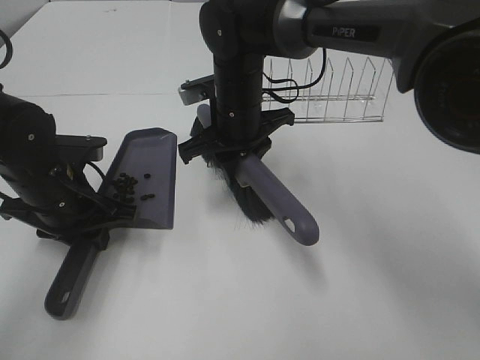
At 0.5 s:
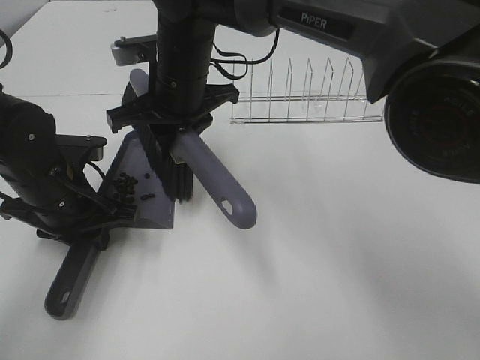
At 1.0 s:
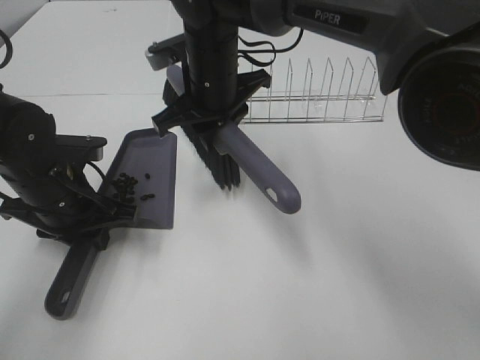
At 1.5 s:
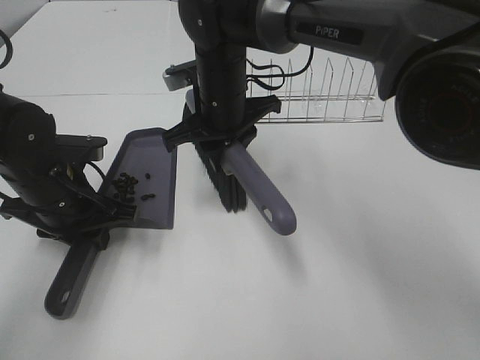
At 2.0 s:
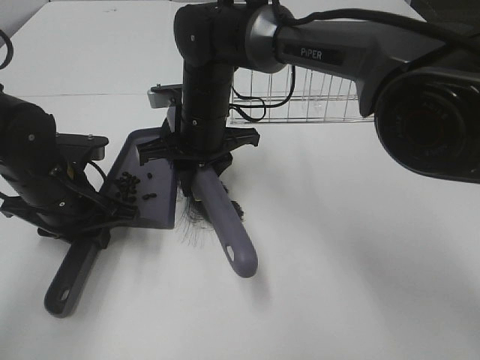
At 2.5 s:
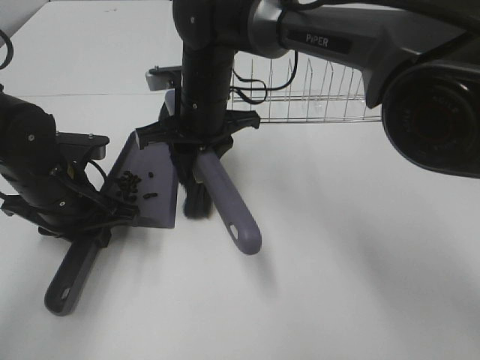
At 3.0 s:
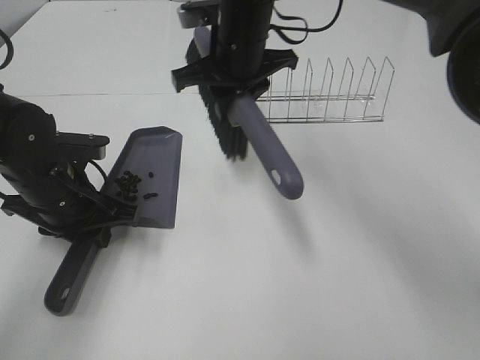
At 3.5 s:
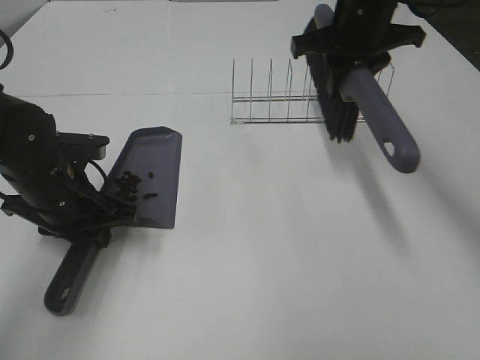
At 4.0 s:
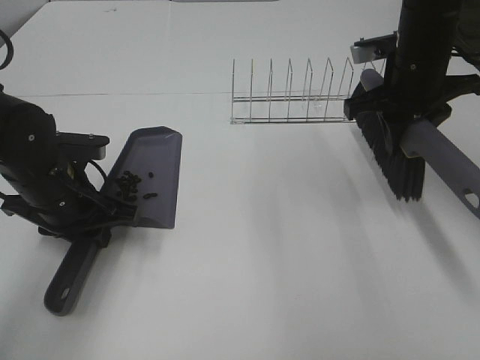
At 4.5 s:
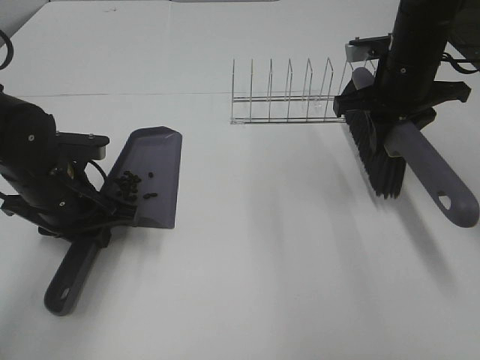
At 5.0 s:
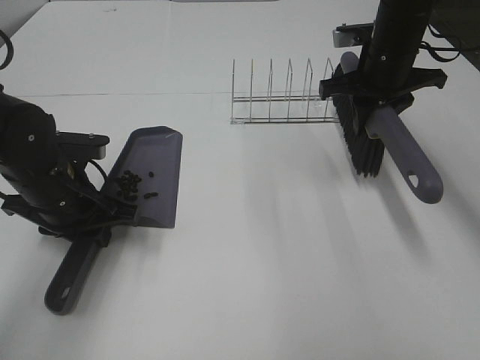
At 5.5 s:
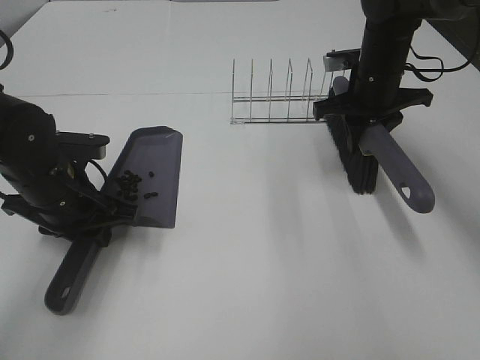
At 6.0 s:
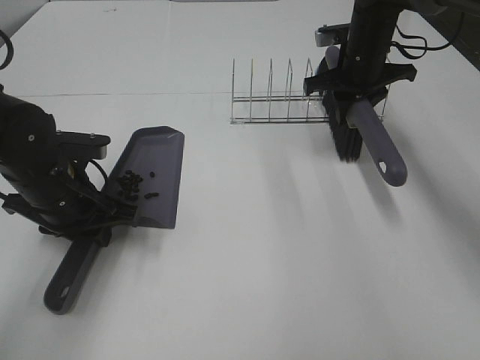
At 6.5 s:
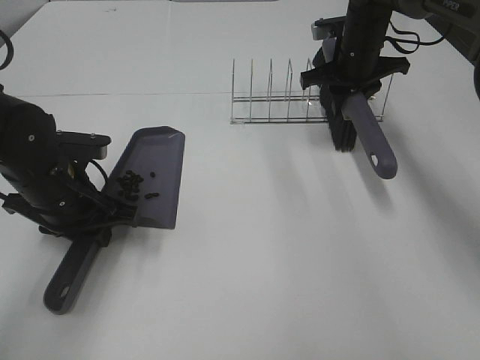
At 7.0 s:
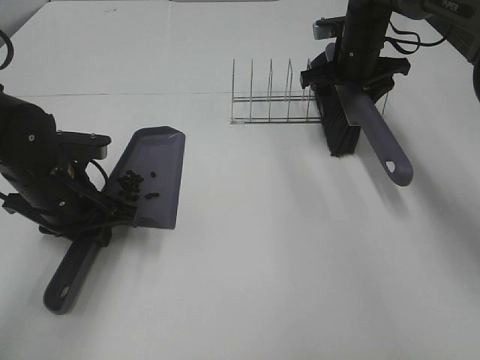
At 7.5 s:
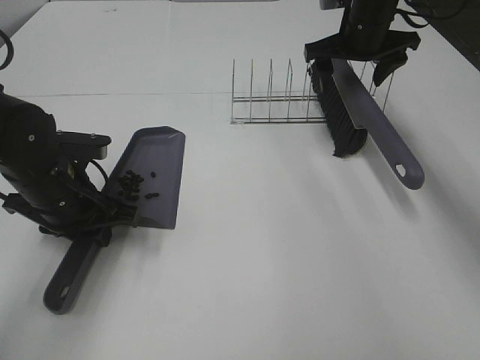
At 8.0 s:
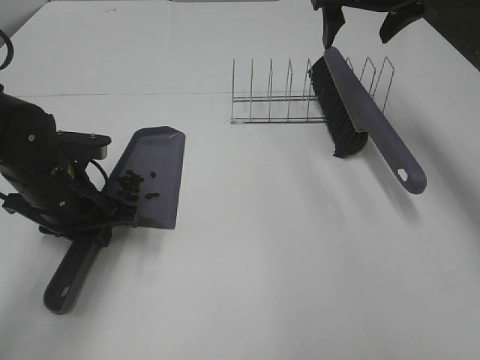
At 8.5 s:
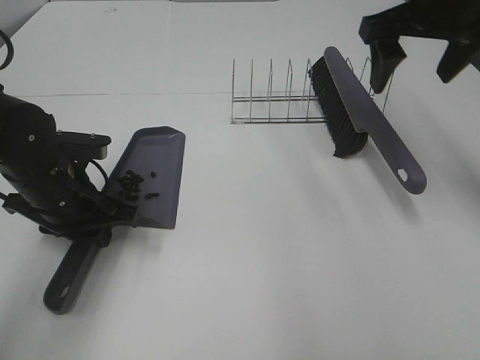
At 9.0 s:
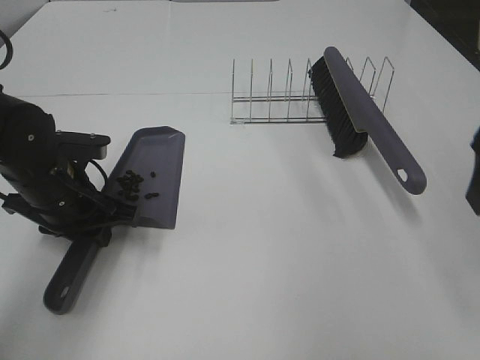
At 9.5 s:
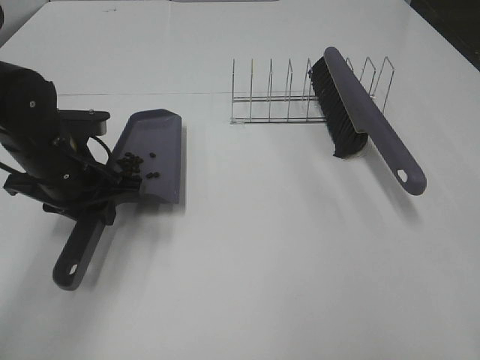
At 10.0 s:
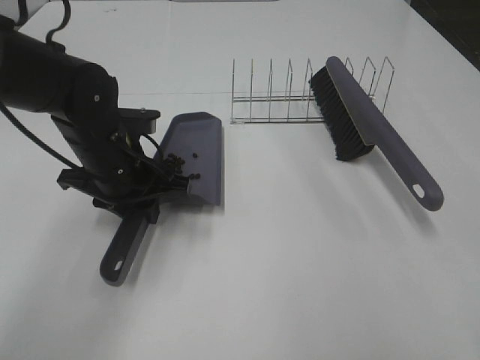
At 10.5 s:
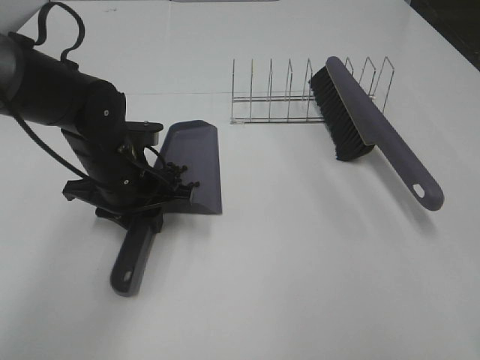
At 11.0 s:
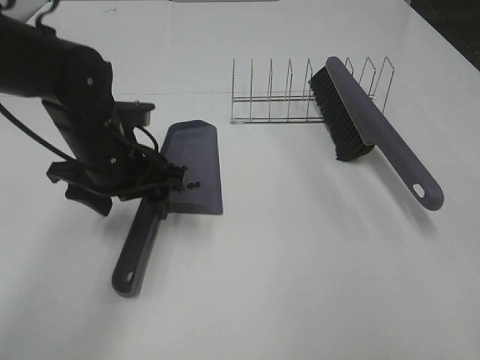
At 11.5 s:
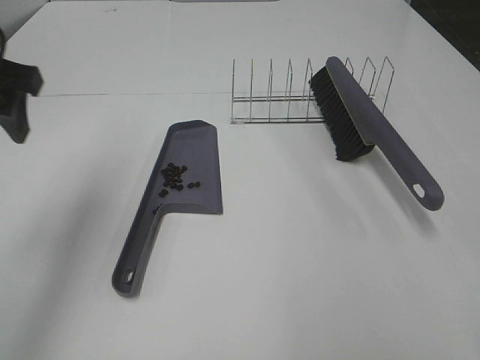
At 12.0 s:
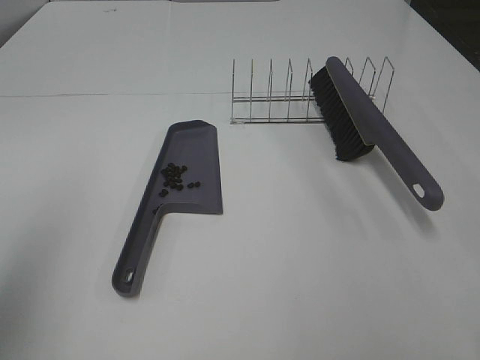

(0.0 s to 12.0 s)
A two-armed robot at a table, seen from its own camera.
Task of the whole recording: Sweep Coffee Bean.
Step, 0.0 s - 7.0 s: Right hand:place the broom on the rack.
Step, 7.5 s - 10.5 s: Left hand:place the dustpan on the table.
2.0 s - 4.0 s: The right gripper moves to the right, about 25 cm.
4.0 s - 6.0 s: The right gripper is displaced forward by roughly 10 cm.
6.0 s - 8.0 s: The right gripper heads upward, covering approximately 10 cm, and opens its fingers.
8.0 s - 10.0 s: The left gripper heads to the right, covering about 5 cm; the right gripper is displaced backward by about 40 cm.
10.0 s - 12.0 s: The left gripper is displaced upward, backward and to the left by about 35 cm, and opens.

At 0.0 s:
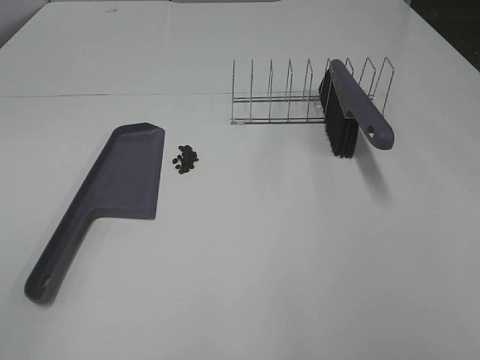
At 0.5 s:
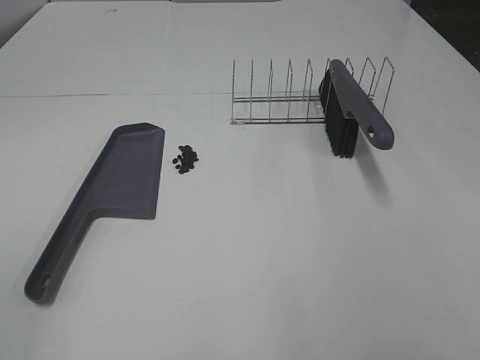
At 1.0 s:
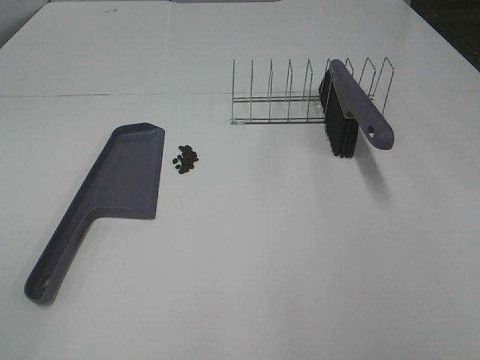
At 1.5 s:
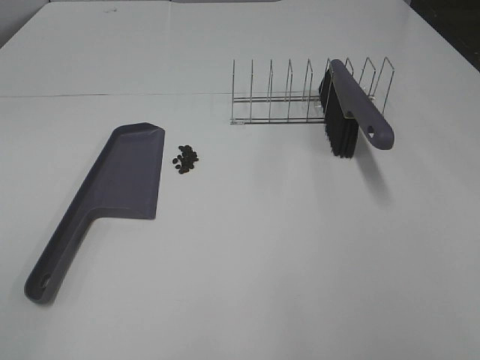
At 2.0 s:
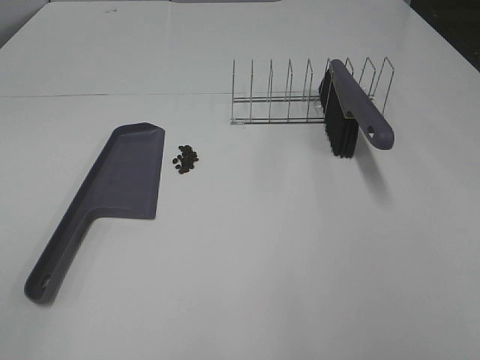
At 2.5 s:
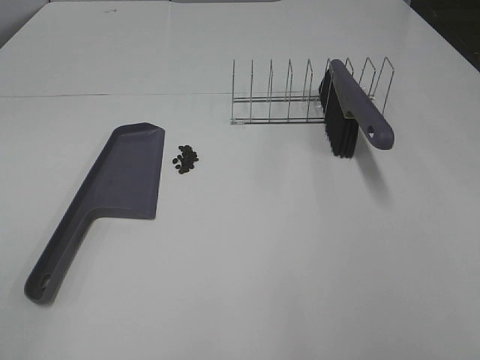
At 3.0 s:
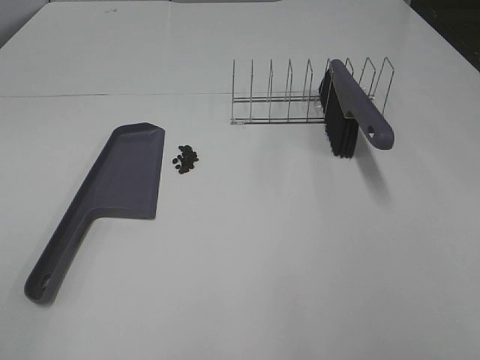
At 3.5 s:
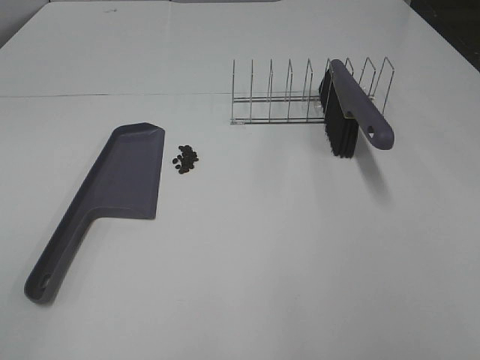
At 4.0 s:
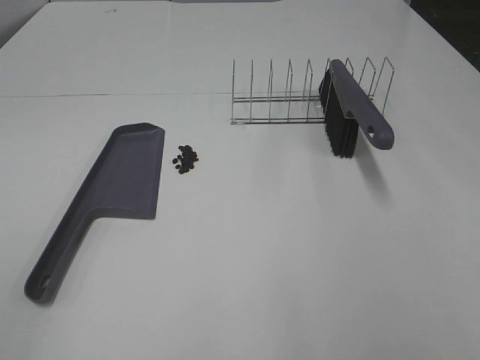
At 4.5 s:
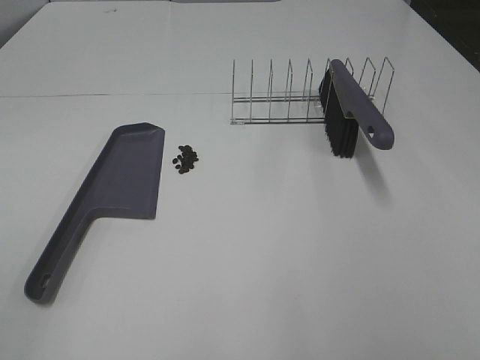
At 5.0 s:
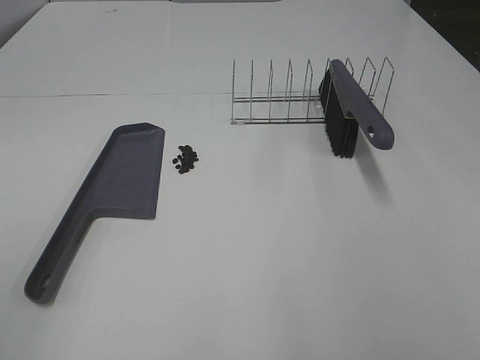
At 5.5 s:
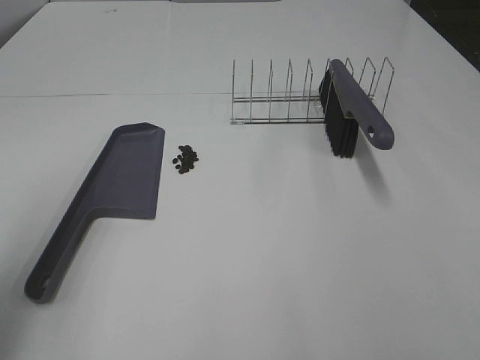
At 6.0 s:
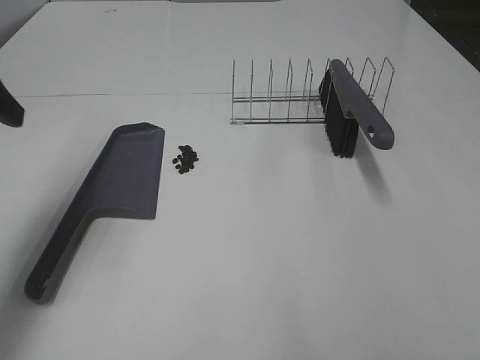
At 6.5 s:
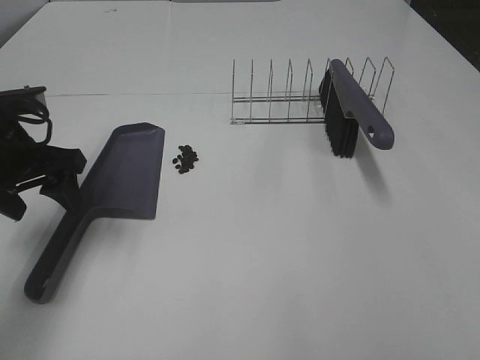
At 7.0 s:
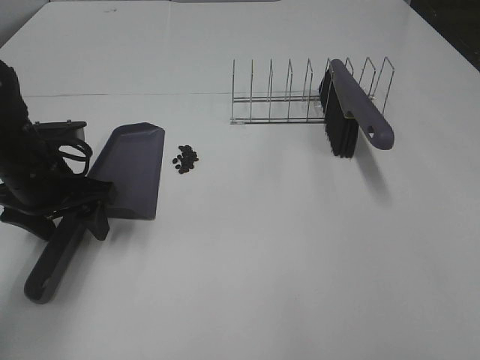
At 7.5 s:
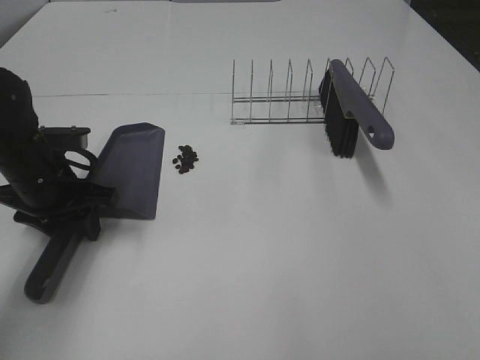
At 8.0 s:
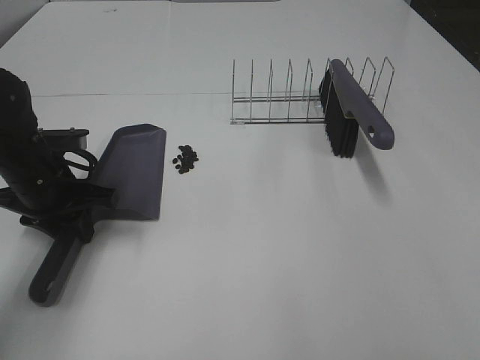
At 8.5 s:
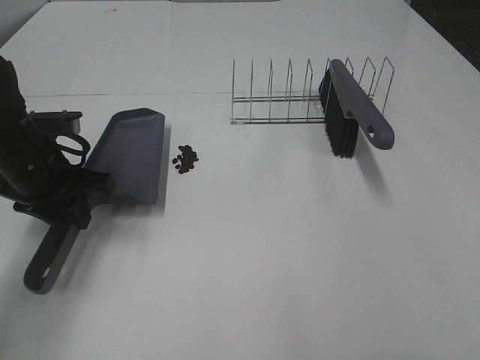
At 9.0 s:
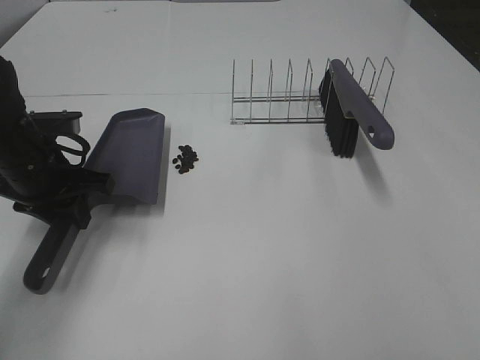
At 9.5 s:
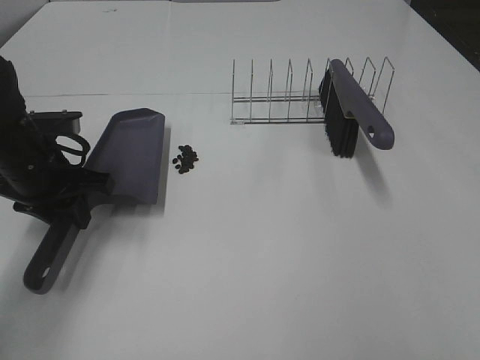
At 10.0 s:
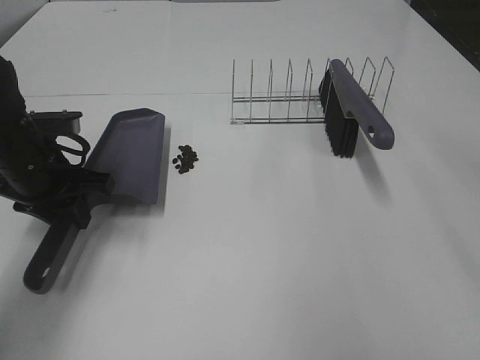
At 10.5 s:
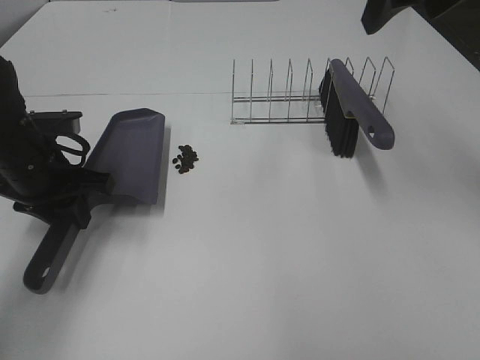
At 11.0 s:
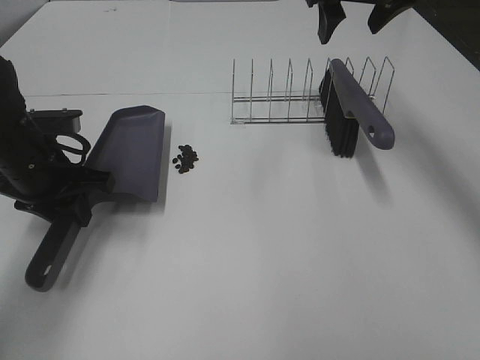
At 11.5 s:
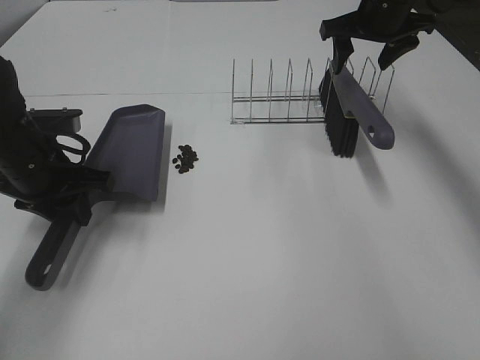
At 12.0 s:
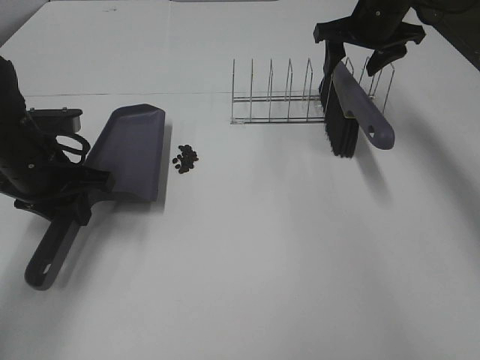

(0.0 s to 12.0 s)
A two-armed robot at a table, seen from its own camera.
Task of the whole recording: Sweep Coffee Bean.
Step, 0.0 s - 7.5 s: Left hand: grab the dustpan.
0.0 s - 4.0 s: Both grippers stay put.
4.0 s - 6.0 s: The left gripper is displaced forward by approximately 30 cm.
6.0 s - 8.0 s: The left gripper goes about 20 cm downward, and closes.
10.0 s - 12.0 s: The right gripper travels forward and downward by approximately 35 cm.

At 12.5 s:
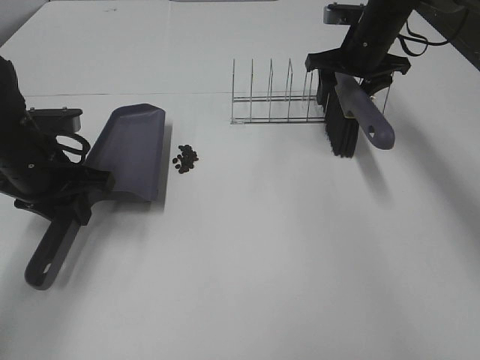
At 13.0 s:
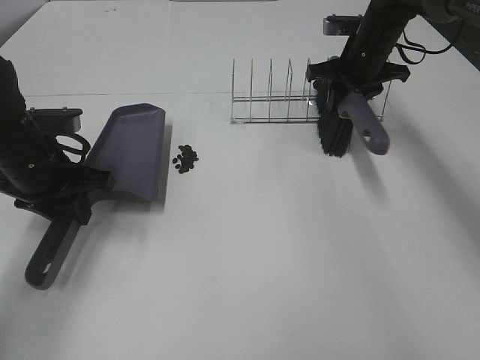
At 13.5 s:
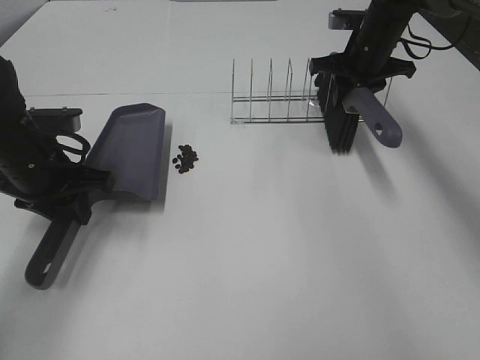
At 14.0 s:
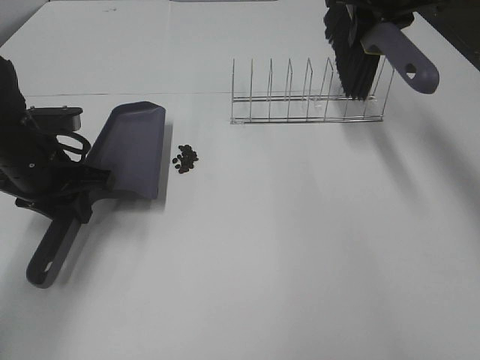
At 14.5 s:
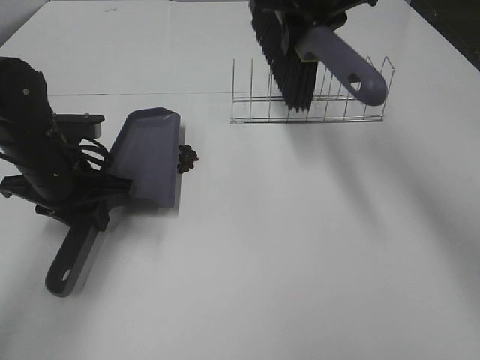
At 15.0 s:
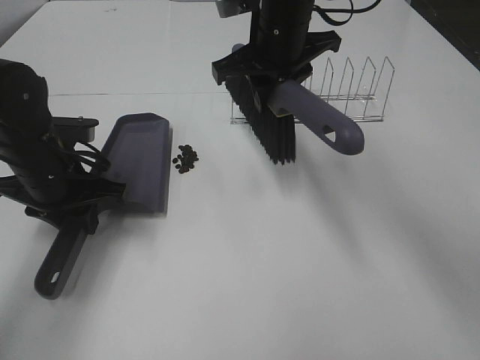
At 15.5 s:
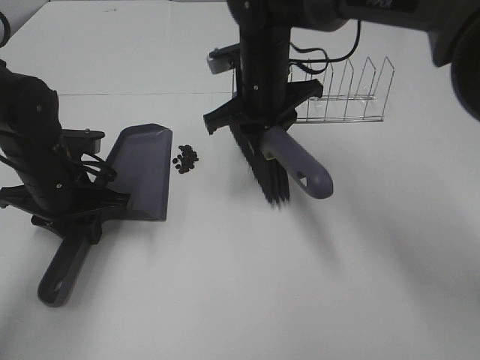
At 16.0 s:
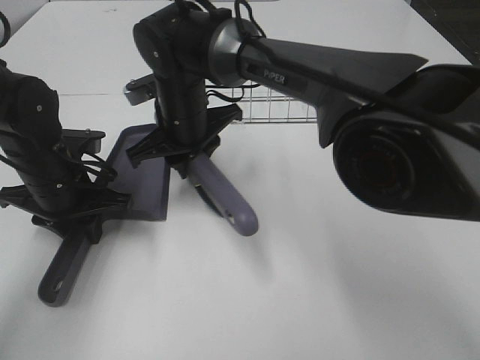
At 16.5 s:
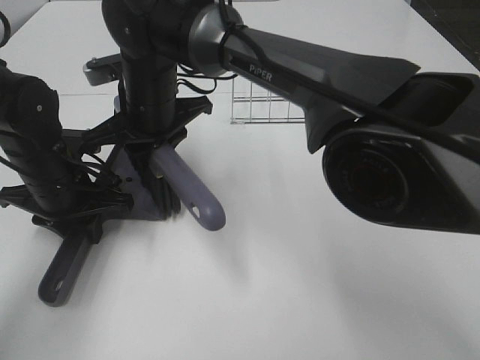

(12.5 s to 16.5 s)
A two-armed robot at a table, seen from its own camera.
Task of the whole recording: Sweep Coffee Bean.
12.5 s - 14.5 s: The right gripper shifts roughly 15 cm upward, to the left and backward, and closes.
14.5 s - 16.5 s: The right gripper moves to the left and downward, some 20 cm.
